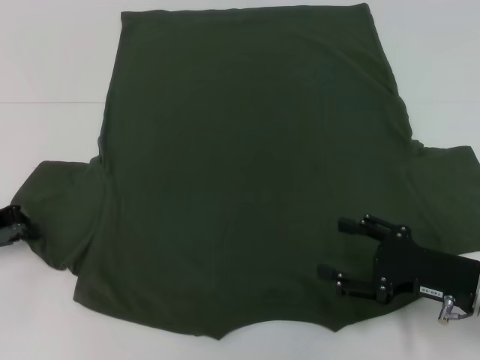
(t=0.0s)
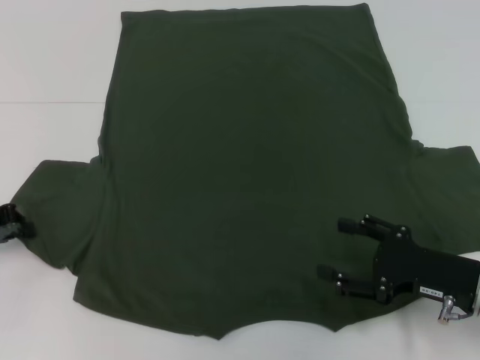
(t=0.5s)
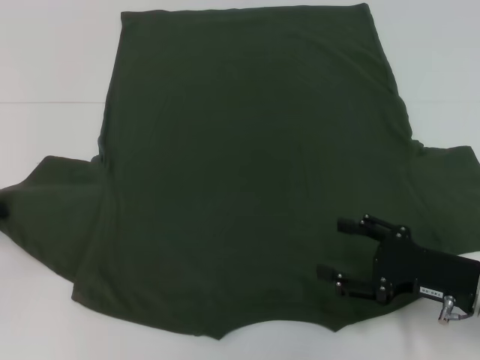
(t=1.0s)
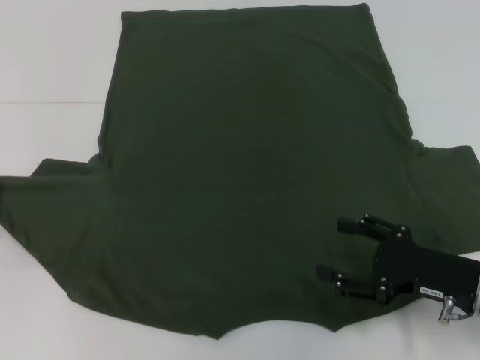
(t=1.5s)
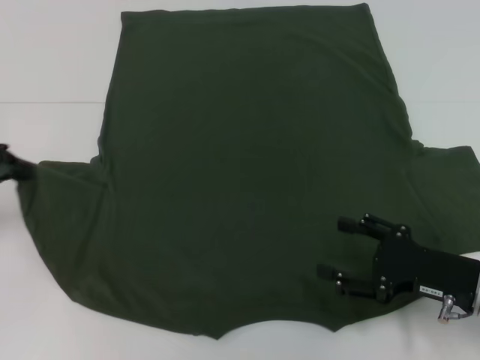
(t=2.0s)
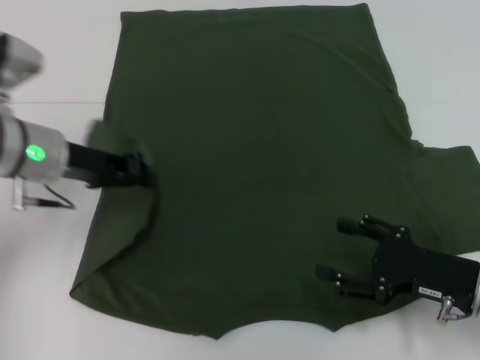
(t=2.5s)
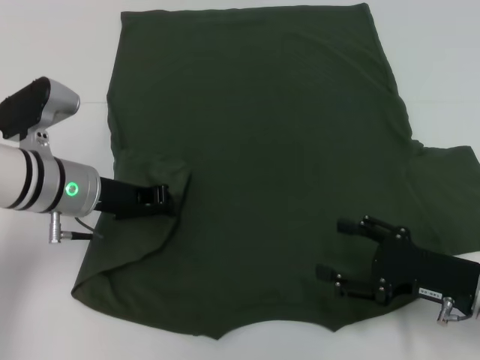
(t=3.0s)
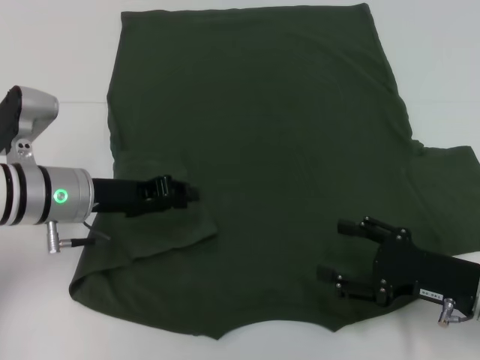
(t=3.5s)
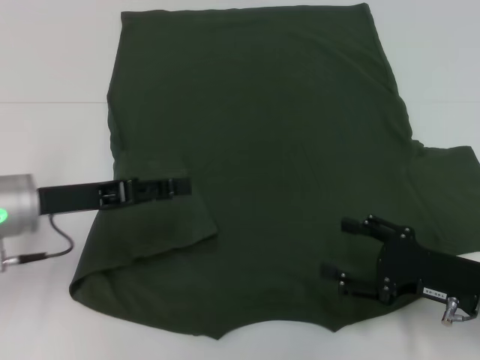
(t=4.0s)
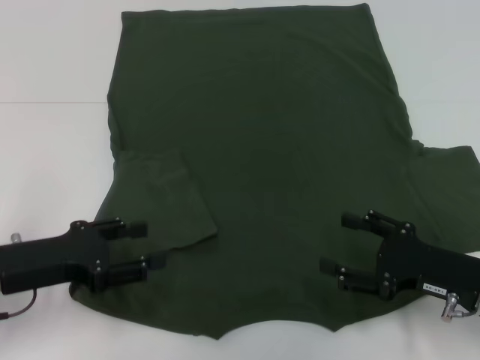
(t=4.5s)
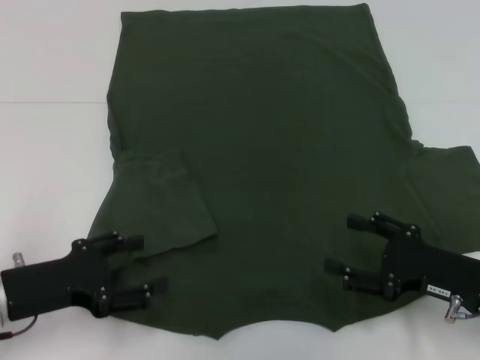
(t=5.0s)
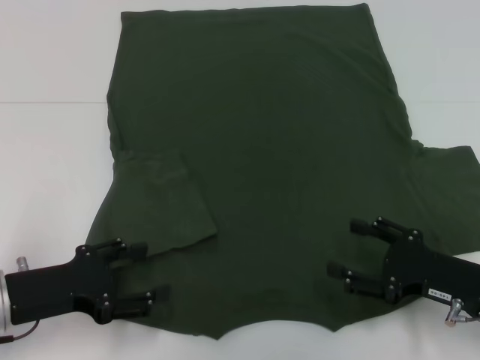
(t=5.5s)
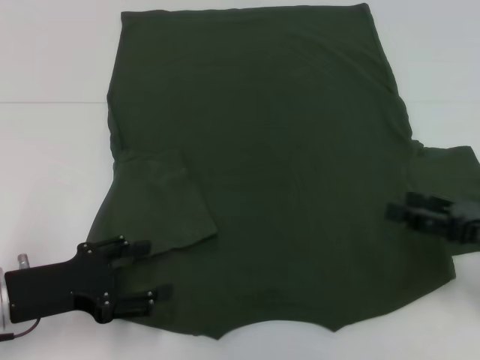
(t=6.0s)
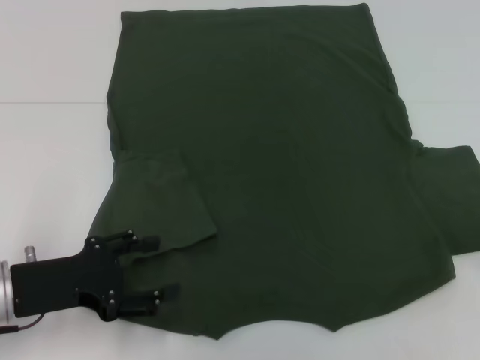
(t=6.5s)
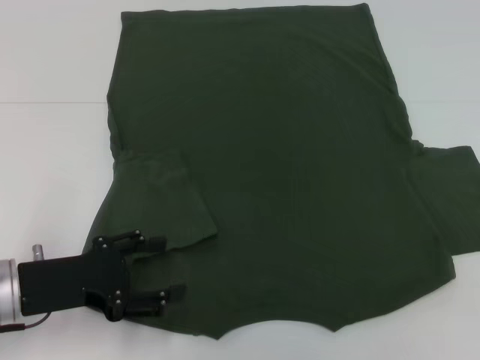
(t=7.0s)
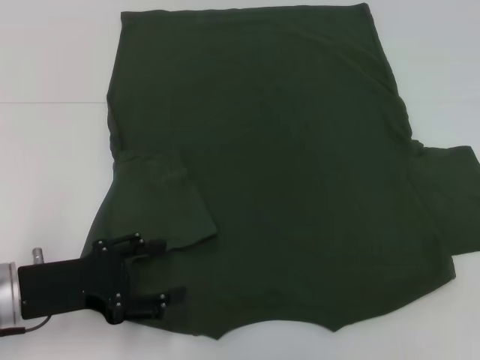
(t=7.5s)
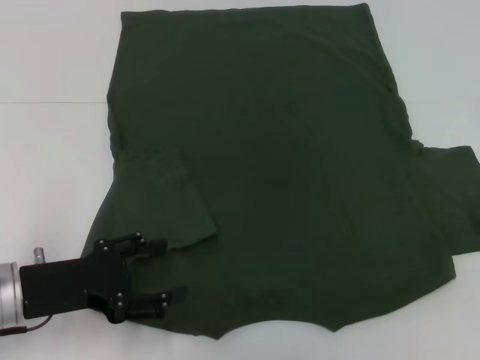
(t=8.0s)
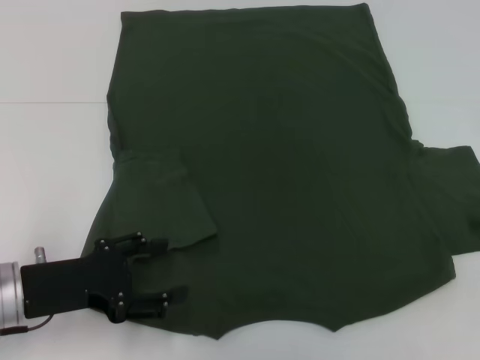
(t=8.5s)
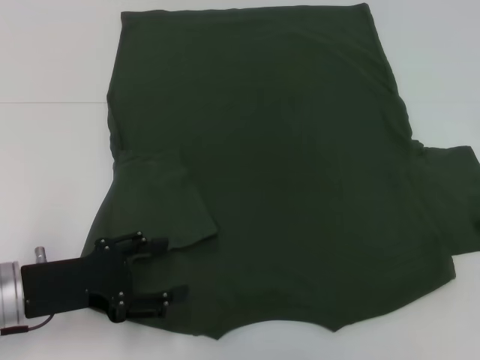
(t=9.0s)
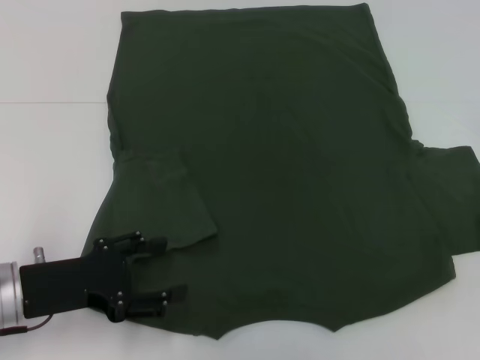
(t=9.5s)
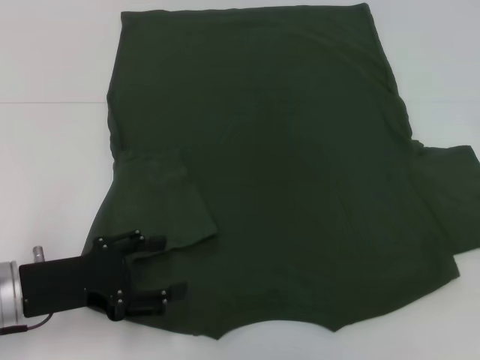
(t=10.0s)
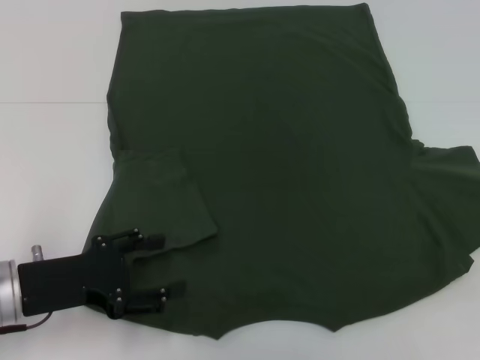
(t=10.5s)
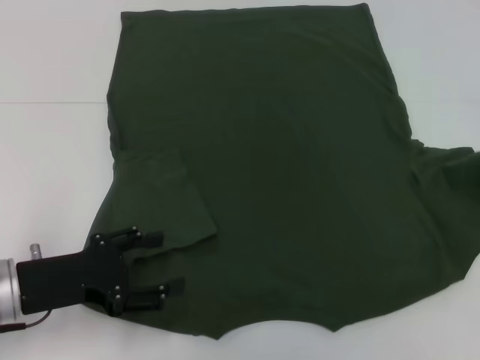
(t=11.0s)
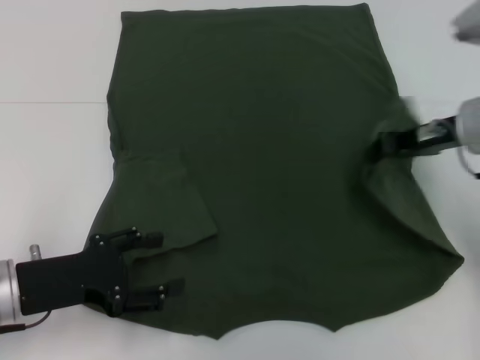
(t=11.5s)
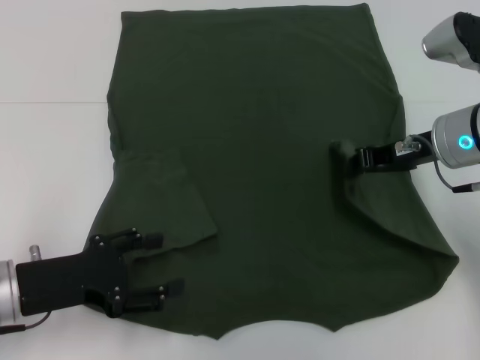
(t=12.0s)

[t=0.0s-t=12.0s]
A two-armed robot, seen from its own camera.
Step, t=0.0s to t=4.5s: Fold the bottom left sleeve with your left hand.
t=0.0s to t=2.0s: The left gripper heads upward, covering some 5 cm.
t=2.0s to t=4.0s: The left gripper travels to the right by approximately 10 cm, and opens.
t=4.0s to t=6.0s: The left gripper travels backward by some 5 cm. The right gripper heads to the right and upward, covering some 10 cm.
t=6.0s to t=8.0s: The right gripper travels forward and to the right by some 10 cm.
t=10.0s to t=12.0s: The right gripper goes roughly 15 cm to the left.

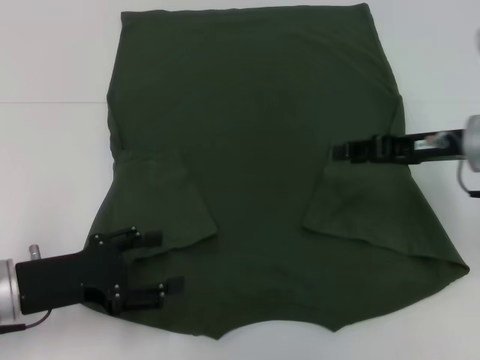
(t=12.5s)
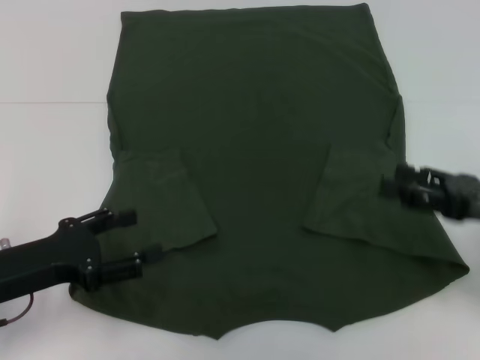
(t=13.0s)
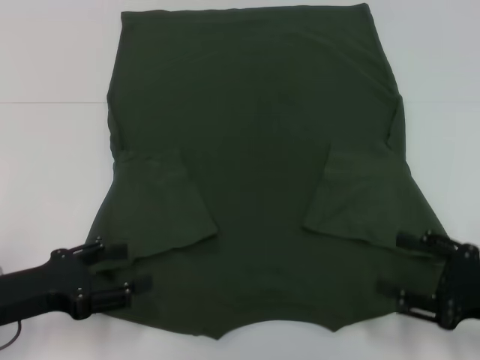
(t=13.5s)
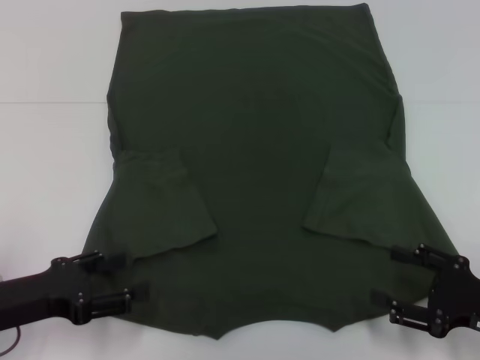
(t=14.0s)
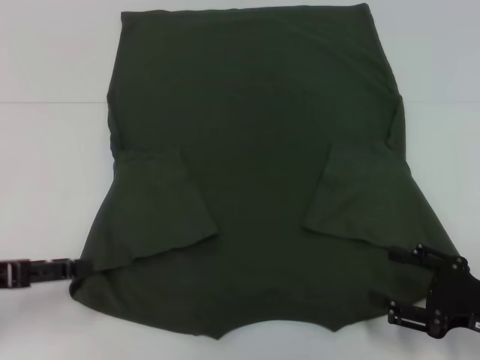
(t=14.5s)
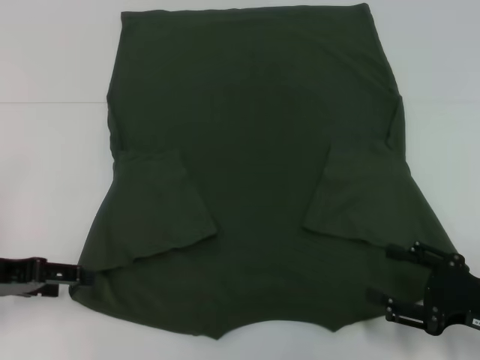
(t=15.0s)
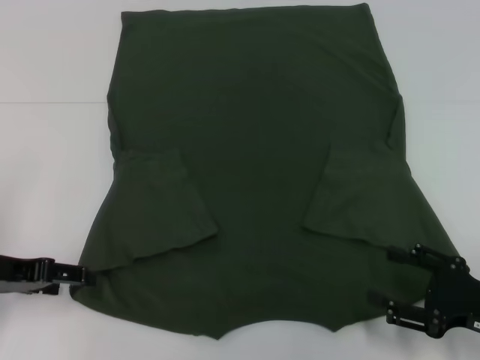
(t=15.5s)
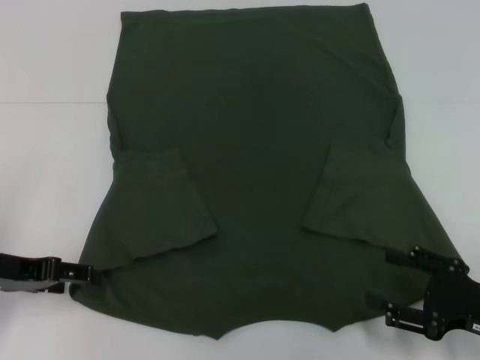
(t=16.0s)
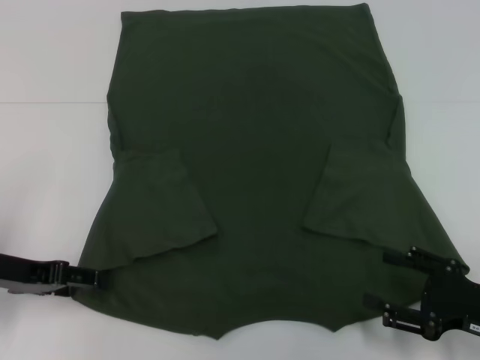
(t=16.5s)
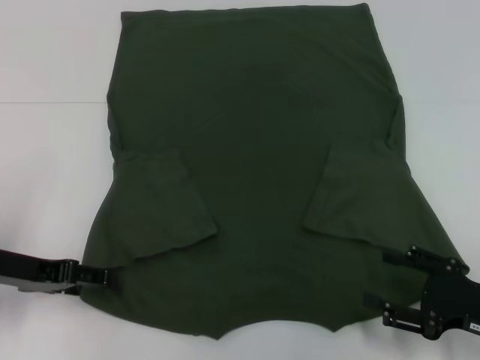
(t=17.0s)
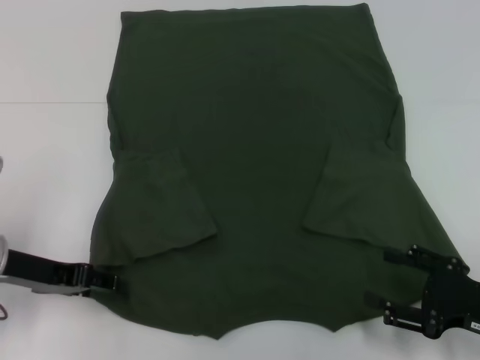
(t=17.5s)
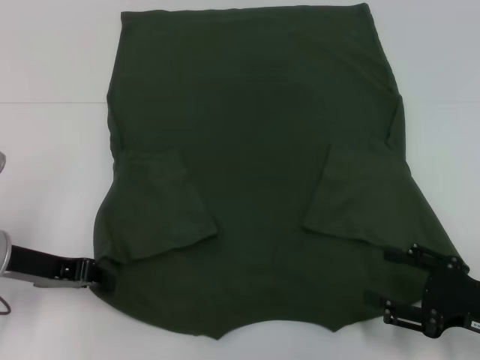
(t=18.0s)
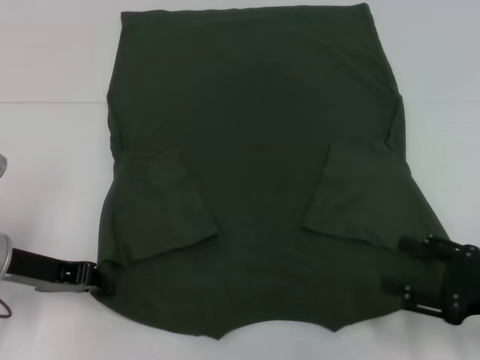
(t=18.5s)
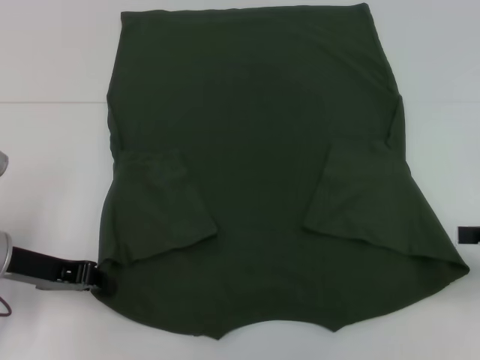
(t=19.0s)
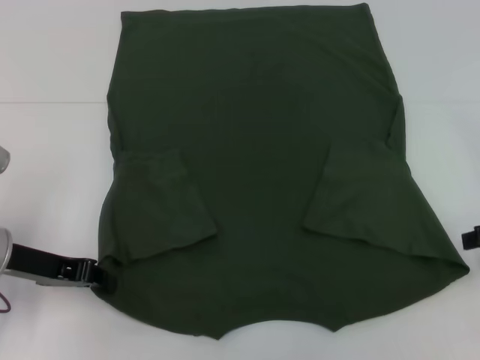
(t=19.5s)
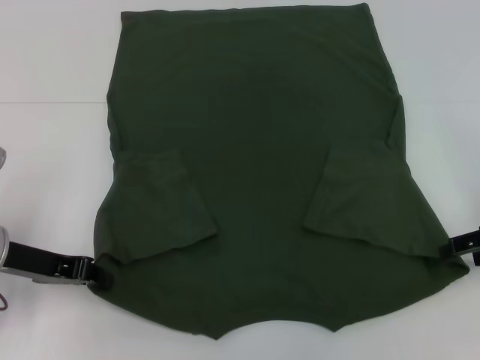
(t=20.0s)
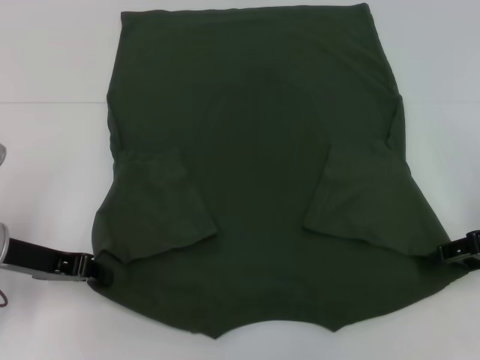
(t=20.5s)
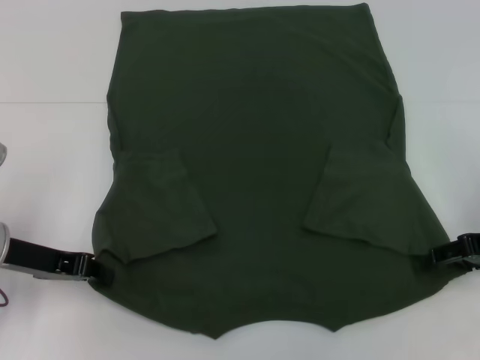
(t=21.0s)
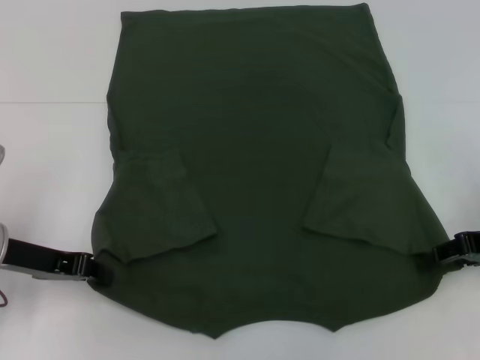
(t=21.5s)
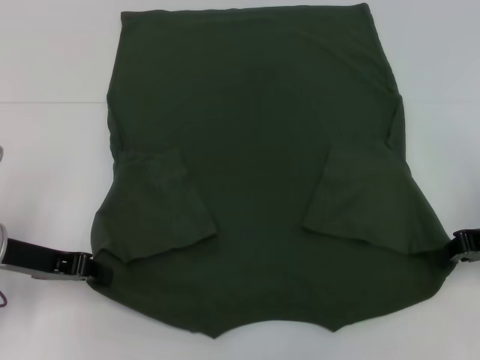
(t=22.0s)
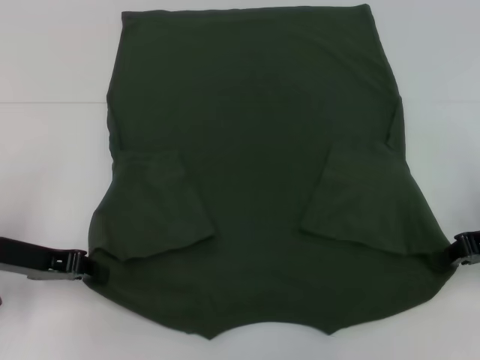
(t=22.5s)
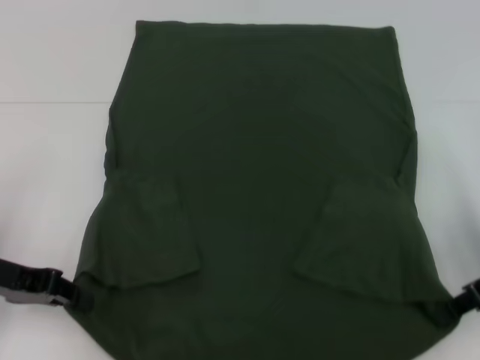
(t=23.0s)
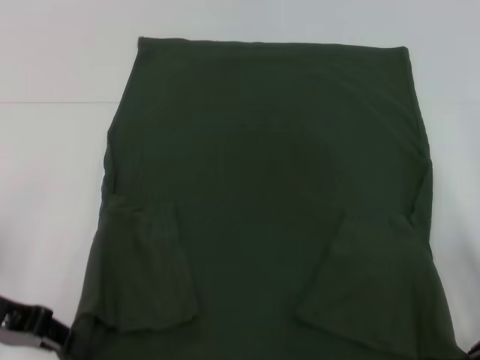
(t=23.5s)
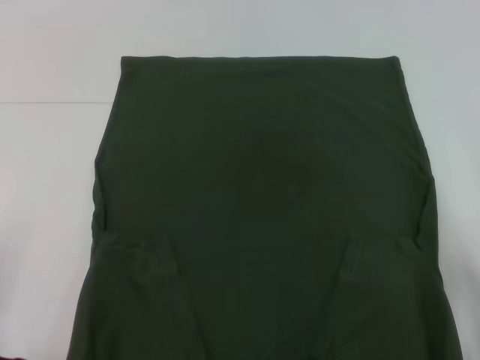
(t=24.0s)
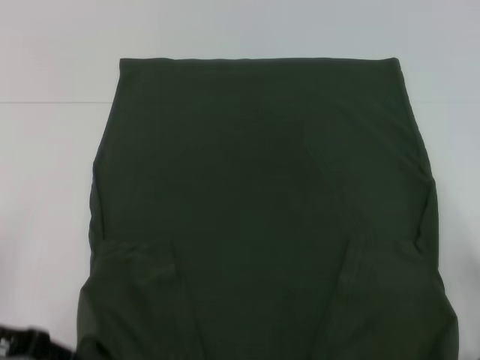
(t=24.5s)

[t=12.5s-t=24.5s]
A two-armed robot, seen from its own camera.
Step, t=14.0s to t=18.0s: Grab the bottom left corner with your left hand.
Step, t=18.5s to t=21.5s: Grab the bottom right corner with your right hand.
t=12.5s to t=14.5s: The right gripper goes approximately 20 cm backward and downward, and opens its fingers, while the left gripper is displaced to the left by some 5 cm.
t=14.5s to t=16.5s: The left gripper goes about 5 cm forward.
t=16.5s to t=18.5s: The left gripper closes.
t=18.5s to t=20.5s: The right gripper travels forward and upward by roughly 10 cm.
t=20.5s to t=22.5s: The right gripper closes up.
t=22.5s to t=24.5s: Both grippers move backward, some 5 cm.

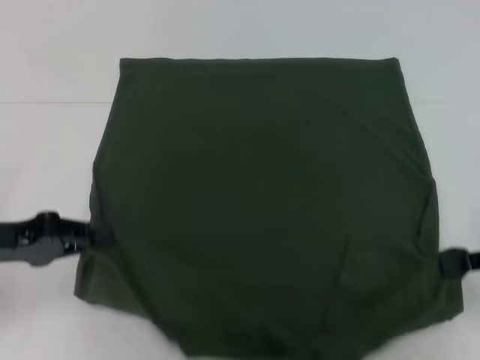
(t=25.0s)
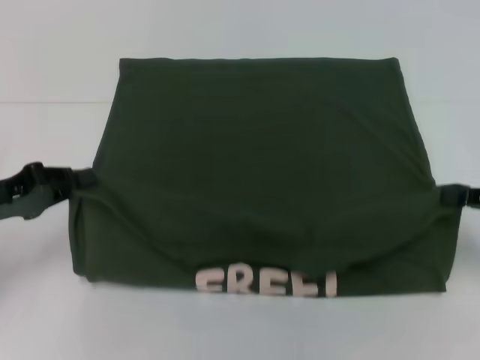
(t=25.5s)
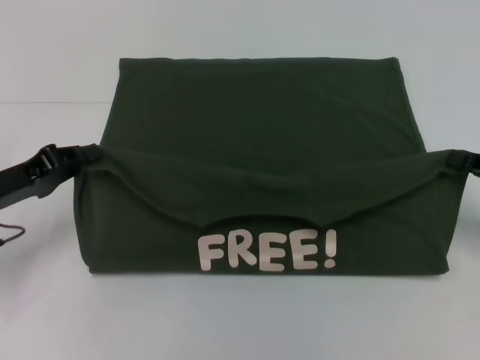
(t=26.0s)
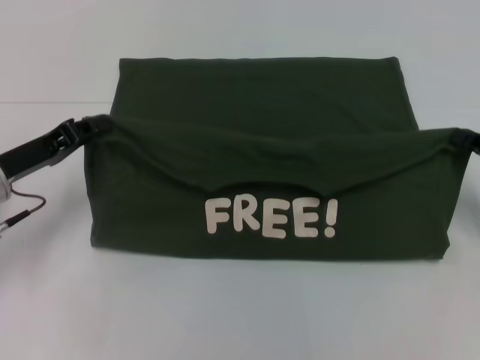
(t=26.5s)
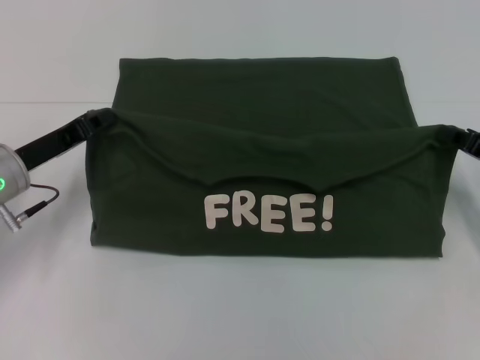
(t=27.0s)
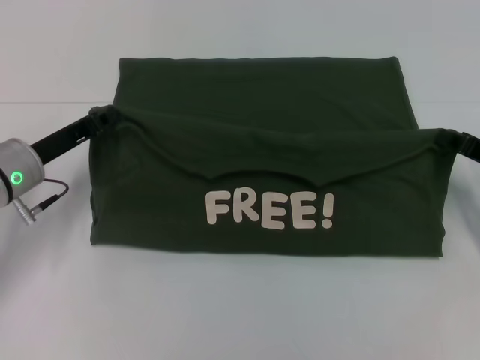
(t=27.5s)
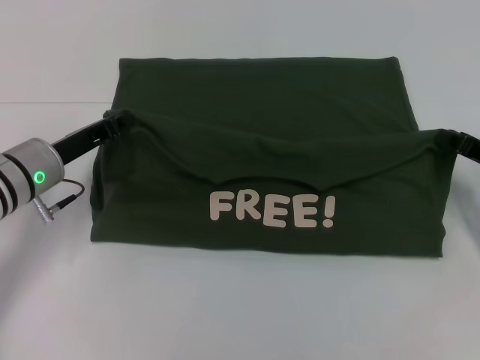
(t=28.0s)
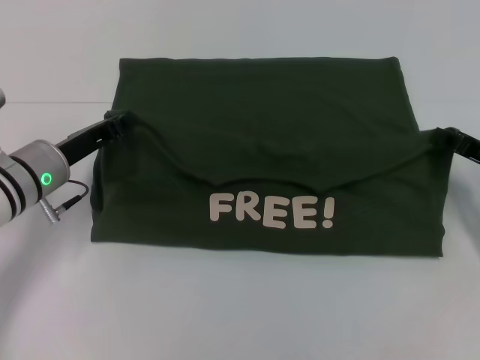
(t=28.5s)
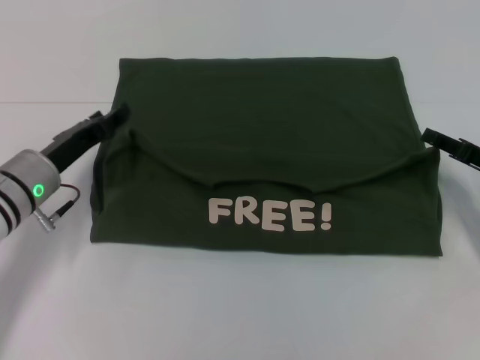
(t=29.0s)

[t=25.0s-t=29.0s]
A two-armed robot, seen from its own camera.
t=25.0s to t=27.0s: The right gripper moves forward and downward, some 10 cm, while the left gripper travels forward by roughly 5 cm.
t=27.0s to t=29.0s: The left gripper opens its fingers.
